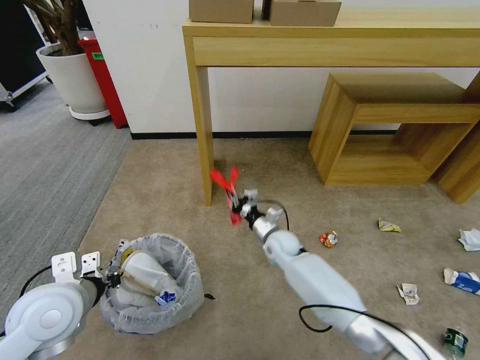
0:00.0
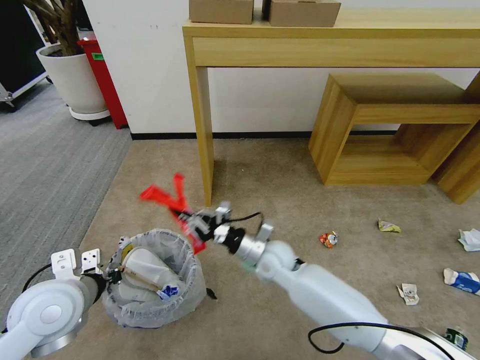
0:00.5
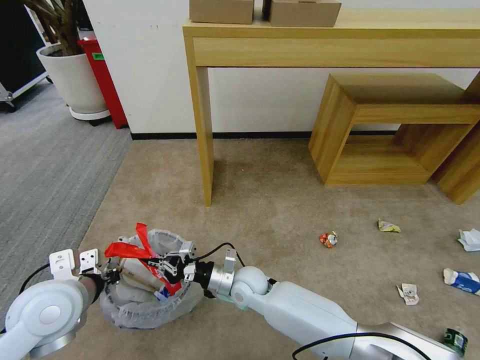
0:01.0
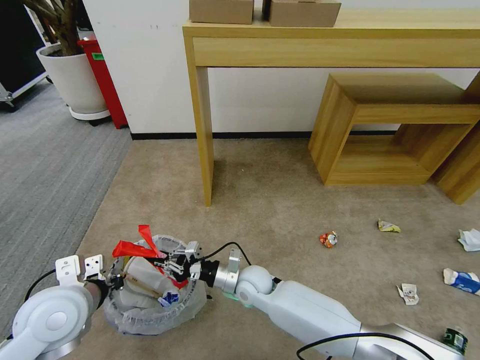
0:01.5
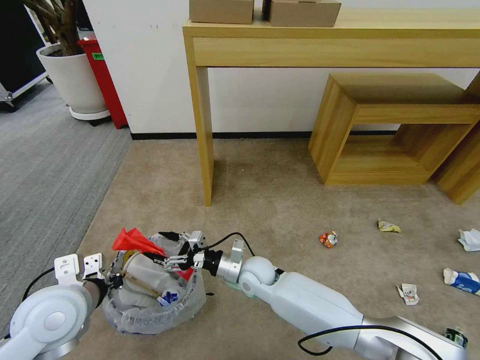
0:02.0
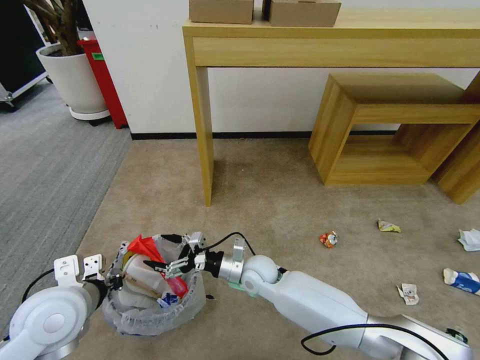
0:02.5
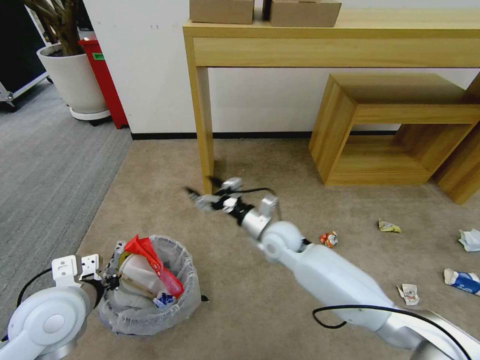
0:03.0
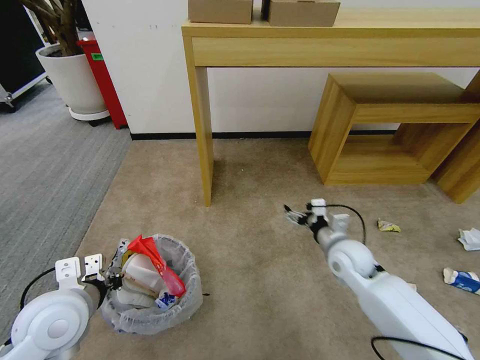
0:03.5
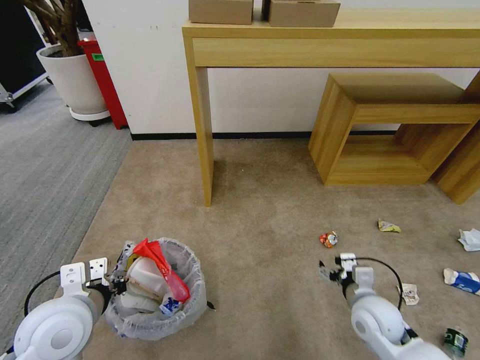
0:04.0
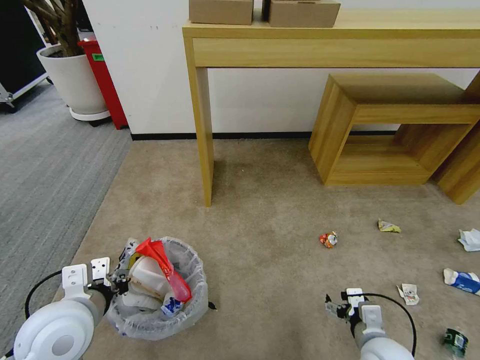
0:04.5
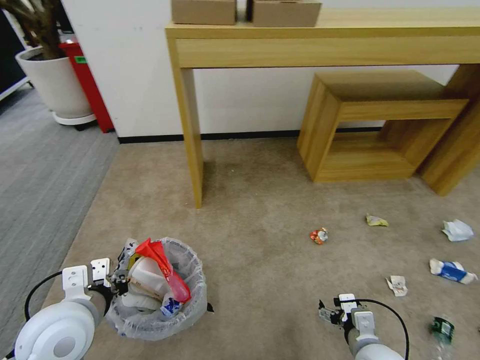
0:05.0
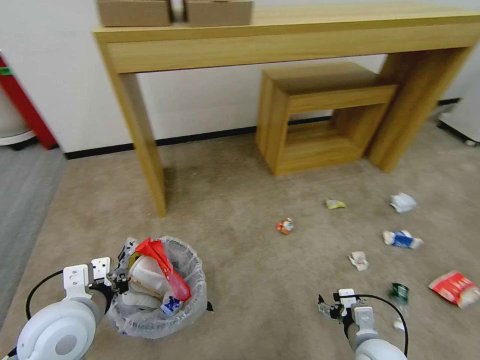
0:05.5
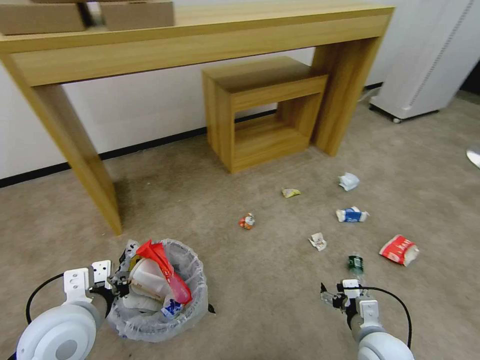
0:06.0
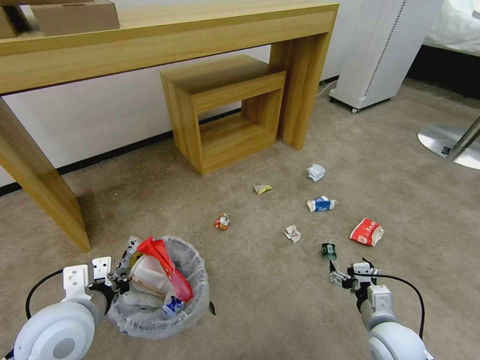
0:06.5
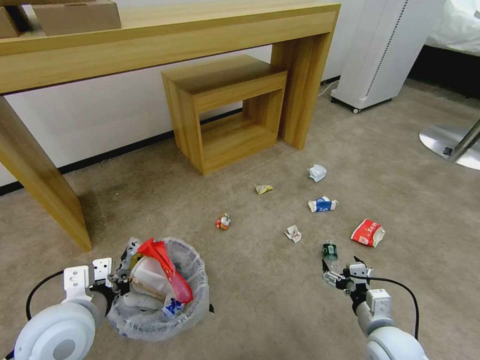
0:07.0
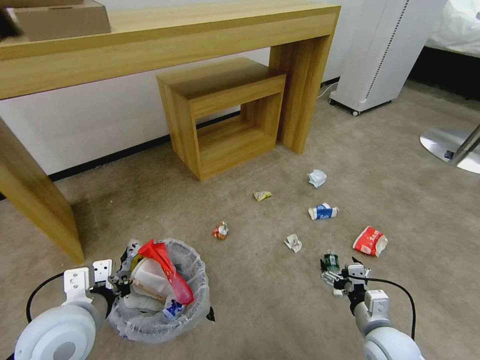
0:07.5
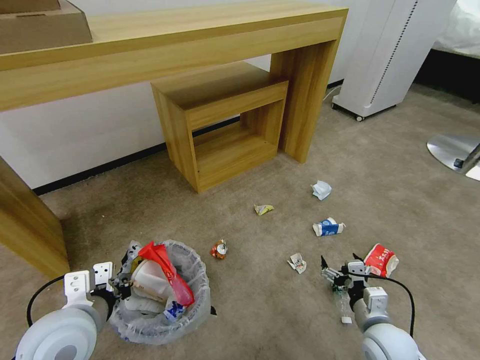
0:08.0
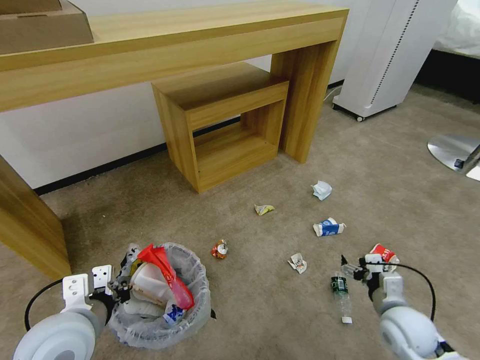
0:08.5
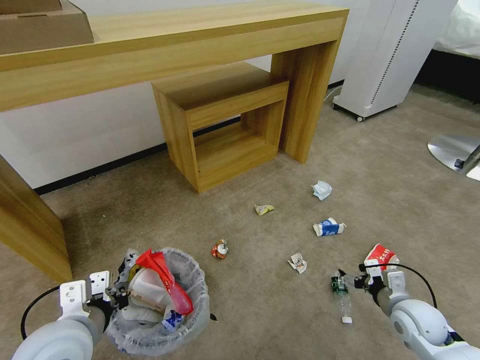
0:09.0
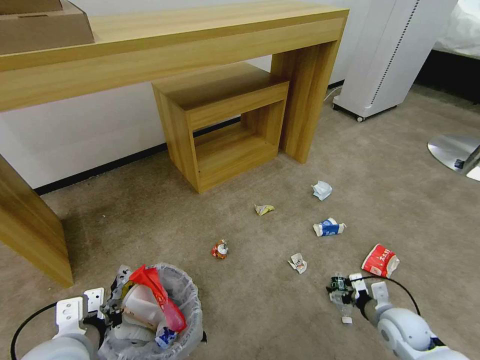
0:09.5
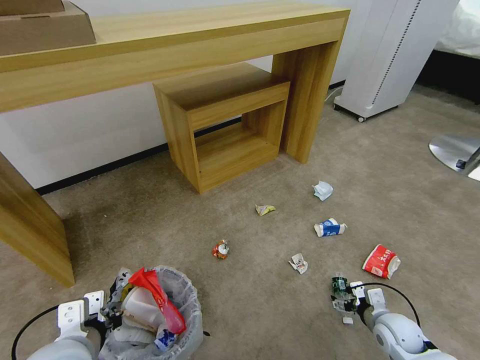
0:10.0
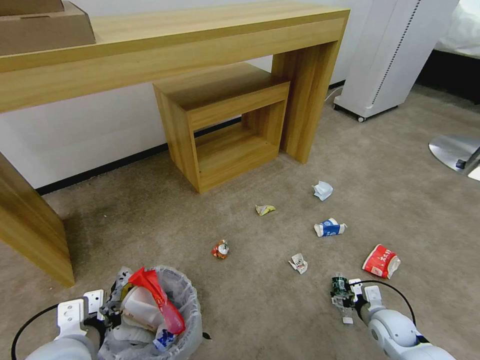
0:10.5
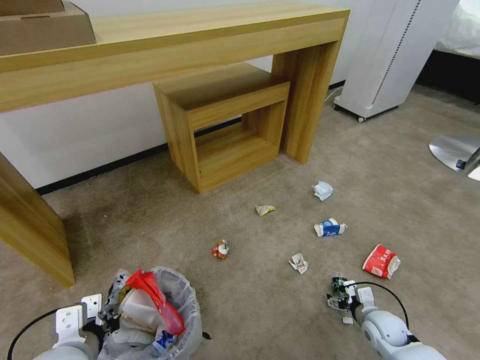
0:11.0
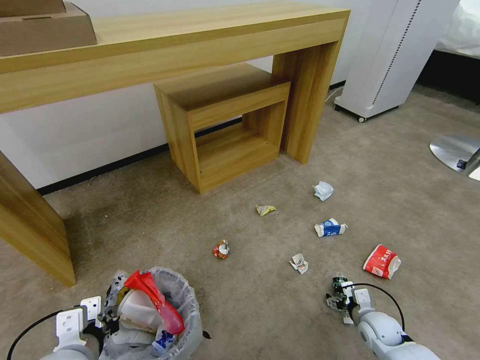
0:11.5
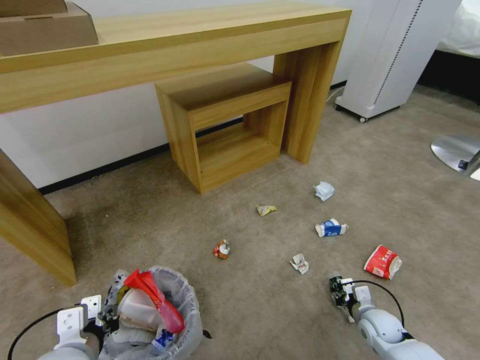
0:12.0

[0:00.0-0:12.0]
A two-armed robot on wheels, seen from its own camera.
Task of the whole recording: Pick up the trash bin and place the garbage on the floor into it.
0:00.0 to 0:02.0: The right gripper goes about 10 cm backward and to the left, and opens its fingers.
0:02.0 to 0:04.0: The right gripper is displaced to the right and backward by some 30 cm.
0:04.0 to 0:06.0: The right gripper heads backward, covering about 5 cm.
0:08.0 to 0:10.0: The right gripper is displaced to the right and downward by some 10 cm.
0:10.0 to 0:12.0: The right gripper moves roughly 5 cm, and closes its fingers.

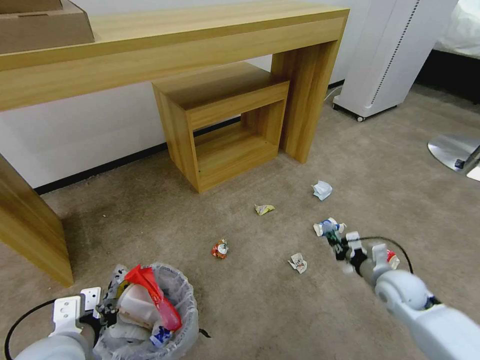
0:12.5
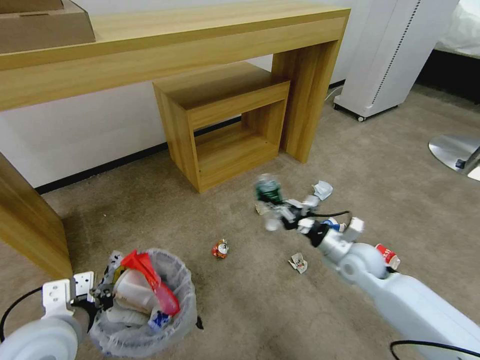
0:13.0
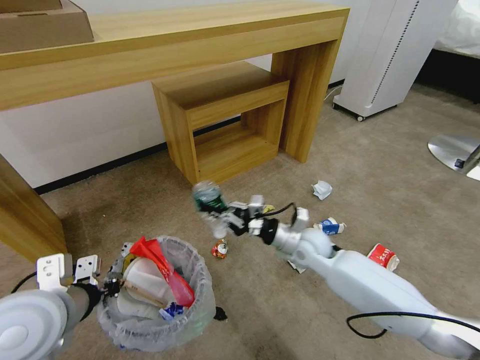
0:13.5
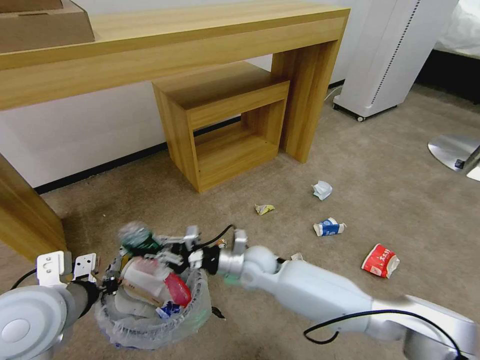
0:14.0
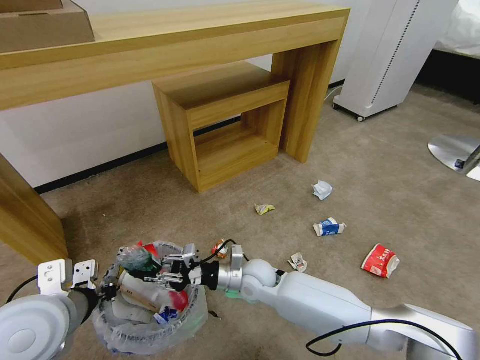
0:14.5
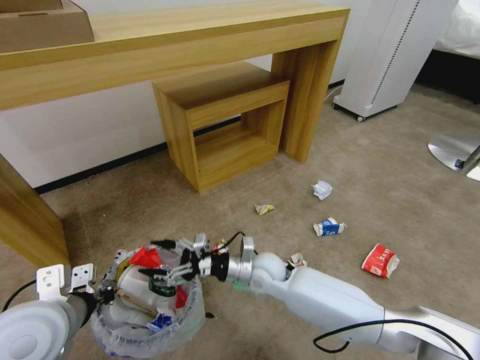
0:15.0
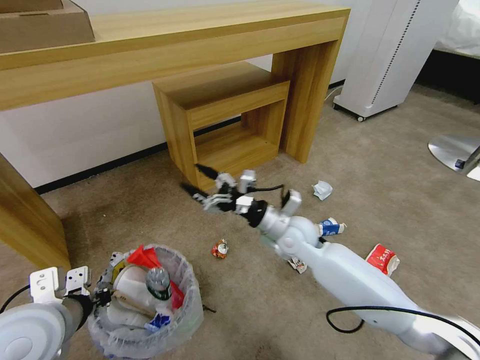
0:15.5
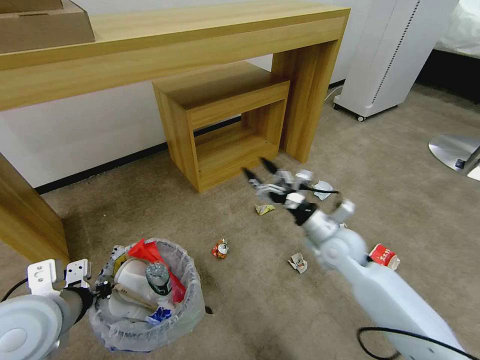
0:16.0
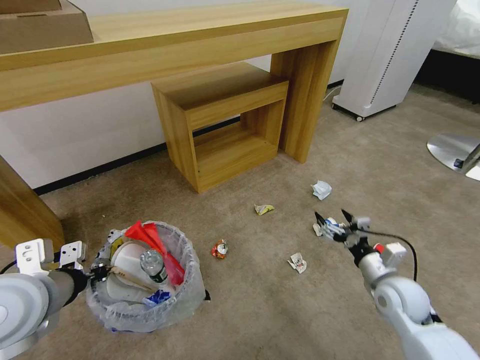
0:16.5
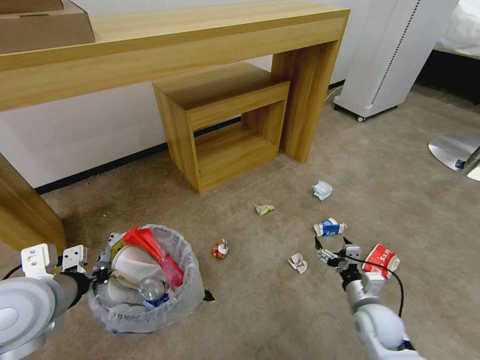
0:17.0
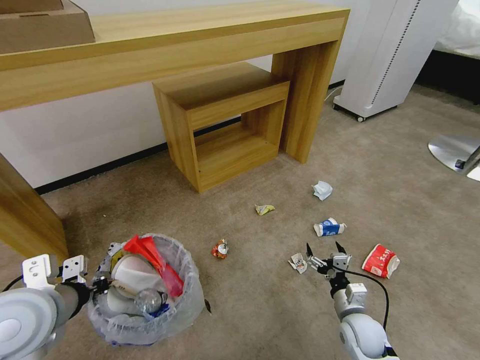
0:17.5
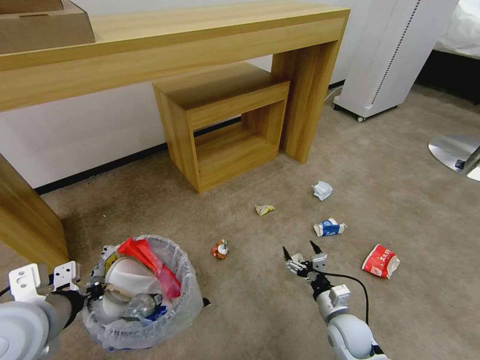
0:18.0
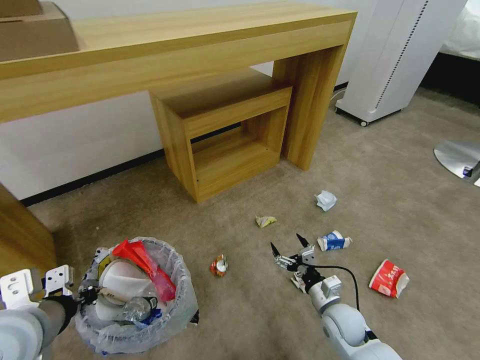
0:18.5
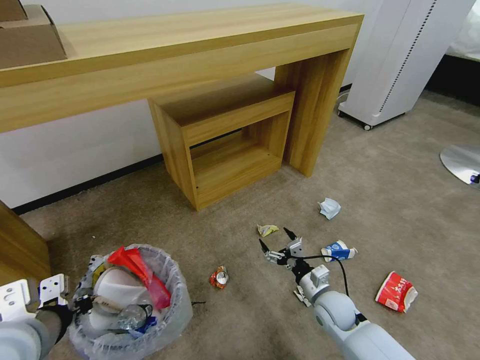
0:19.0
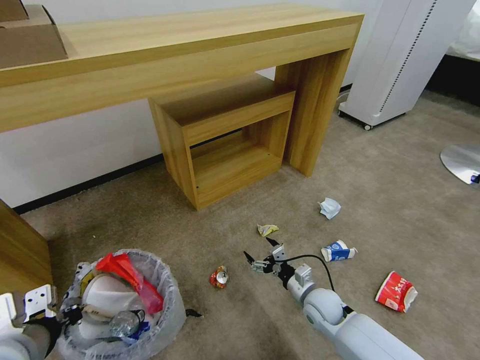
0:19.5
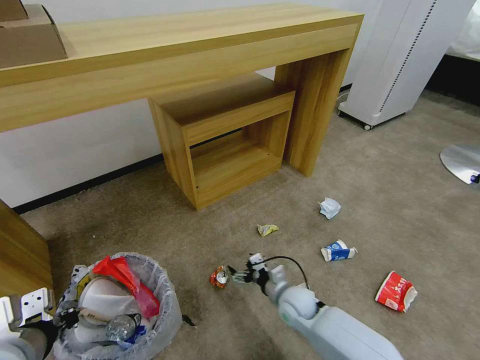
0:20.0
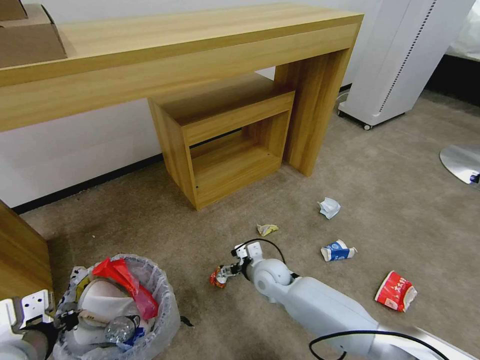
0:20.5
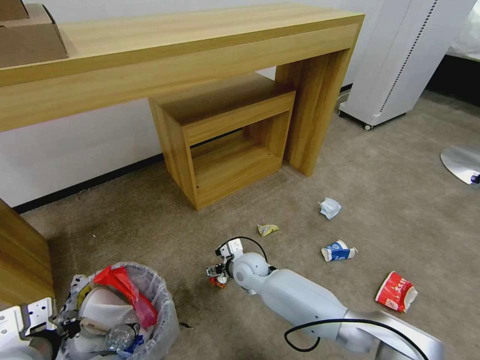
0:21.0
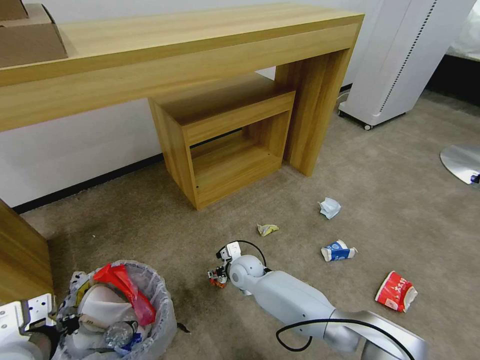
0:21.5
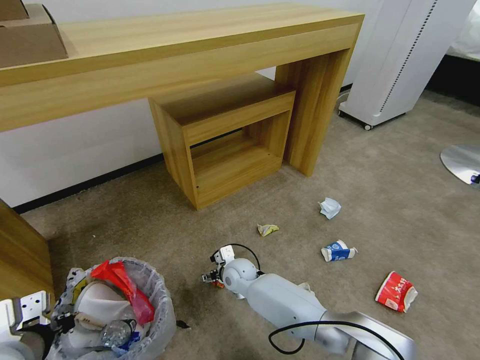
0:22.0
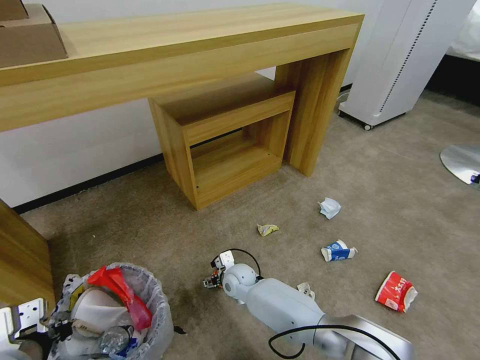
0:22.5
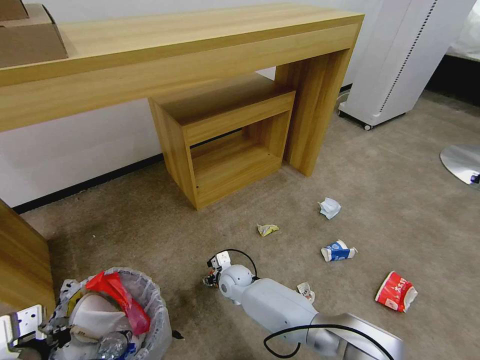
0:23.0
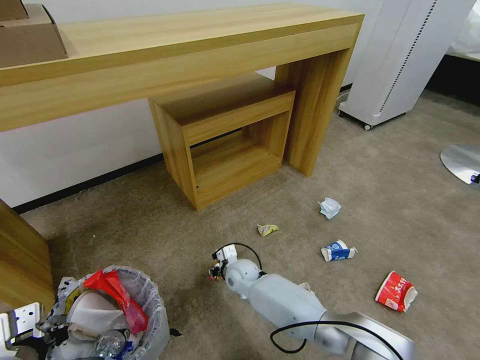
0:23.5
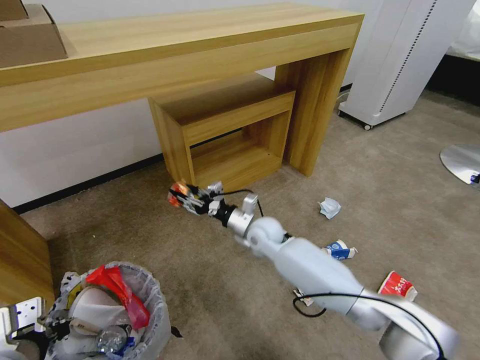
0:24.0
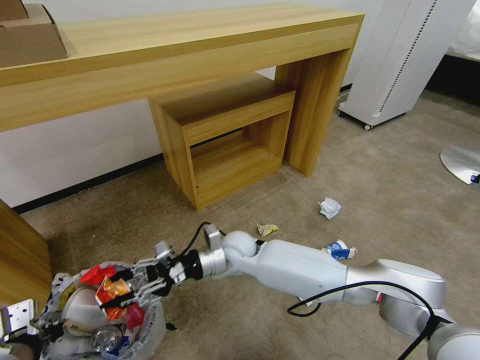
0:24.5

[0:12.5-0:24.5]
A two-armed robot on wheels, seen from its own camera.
Task of the whole recording: Pick up the trash bin and place the garbage on the floor into it.
0:12.5 to 0:14.5: The left gripper moves upward, some 5 cm. The right gripper goes approximately 35 cm to the left.
0:14.5 to 0:16.5: The right gripper travels to the right by approximately 30 cm, and opens.
0:16.5 to 0:18.5: The right gripper shifts some 15 cm downward and to the left.
0:18.5 to 0:20.5: The right gripper shifts some 20 cm to the left and forward.
0:20.5 to 0:22.5: The right gripper moves to the left and downward, some 10 cm.
0:22.5 to 0:24.5: The right gripper moves upward, about 15 cm, and closes.

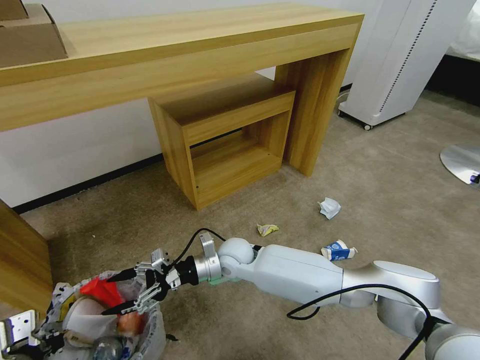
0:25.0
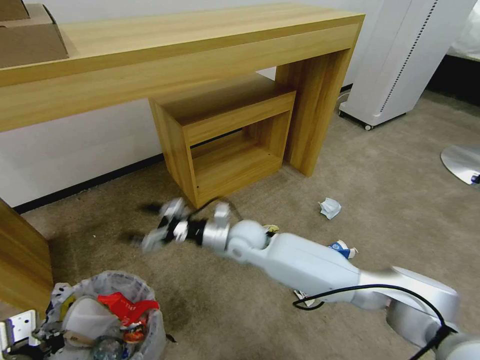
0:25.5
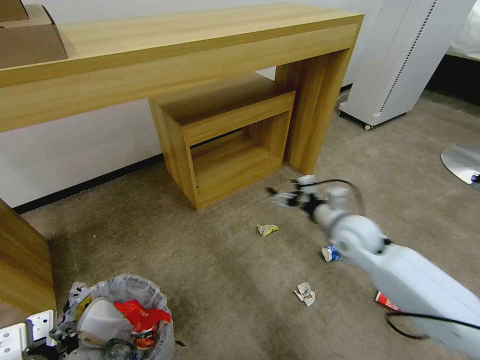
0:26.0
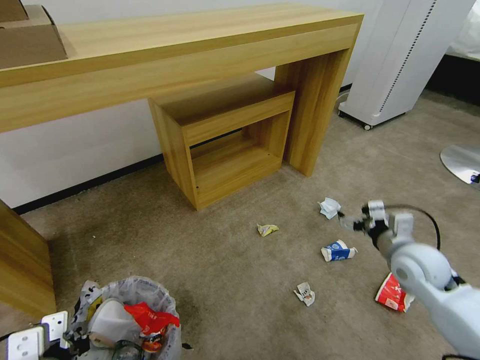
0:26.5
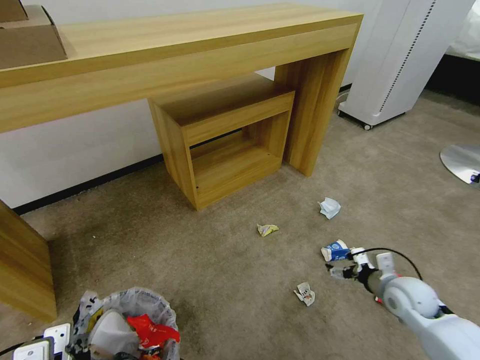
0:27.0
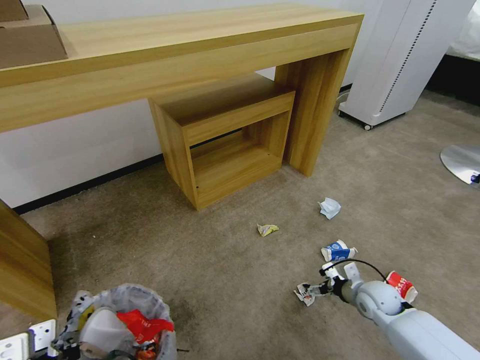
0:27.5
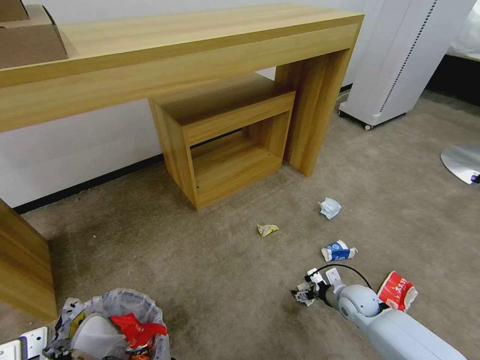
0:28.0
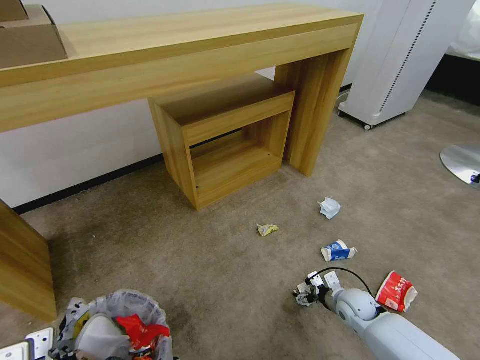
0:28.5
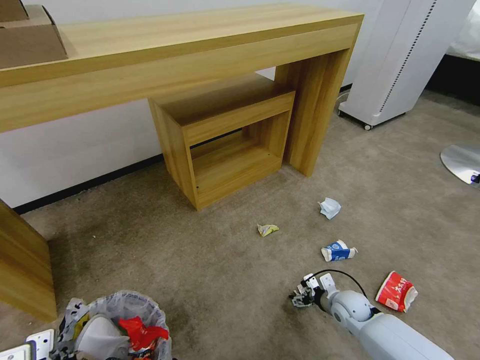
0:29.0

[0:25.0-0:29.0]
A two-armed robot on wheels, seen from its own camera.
Task of the whole recording: Pick up the trash bin and place the garbage on the floor into it.
0:25.0 to 0:27.0: The right gripper heads to the right, covering approximately 40 cm. The left gripper moves some 5 cm.
0:27.0 to 0:29.0: The right gripper moves downward and to the left, about 15 cm.
